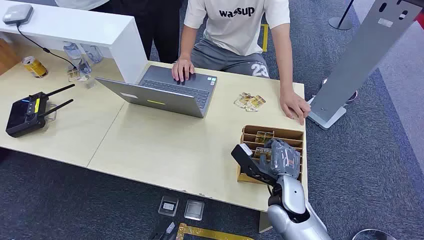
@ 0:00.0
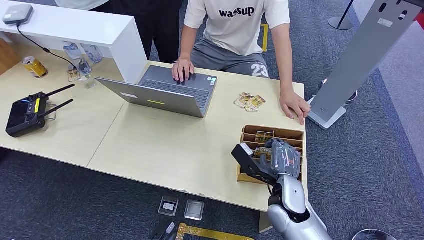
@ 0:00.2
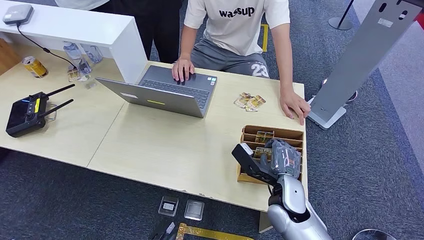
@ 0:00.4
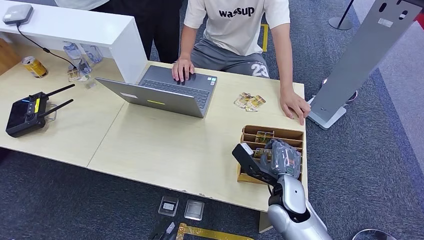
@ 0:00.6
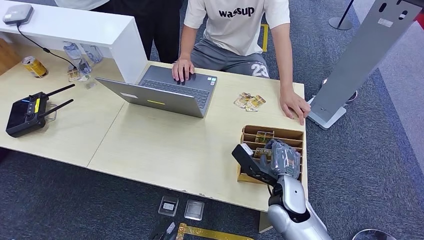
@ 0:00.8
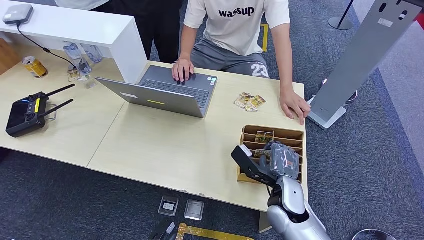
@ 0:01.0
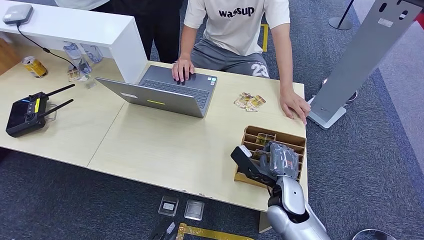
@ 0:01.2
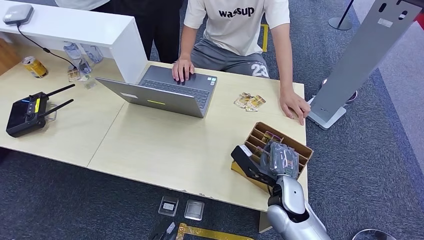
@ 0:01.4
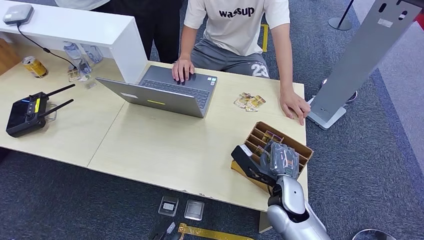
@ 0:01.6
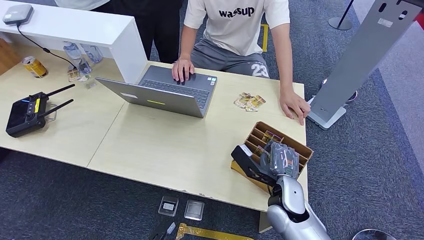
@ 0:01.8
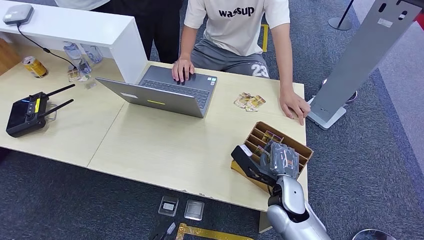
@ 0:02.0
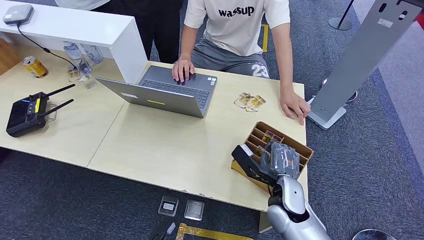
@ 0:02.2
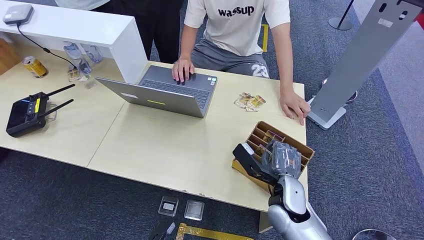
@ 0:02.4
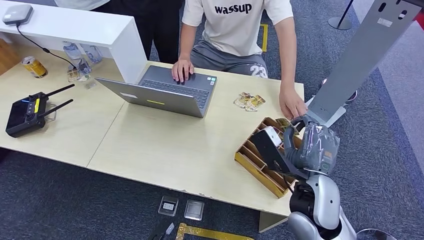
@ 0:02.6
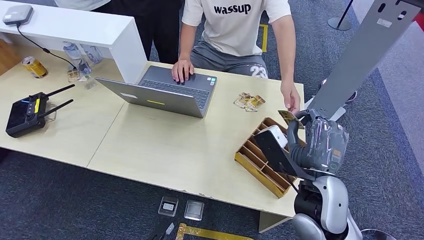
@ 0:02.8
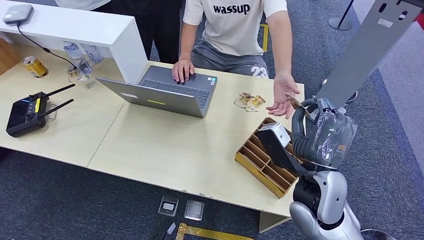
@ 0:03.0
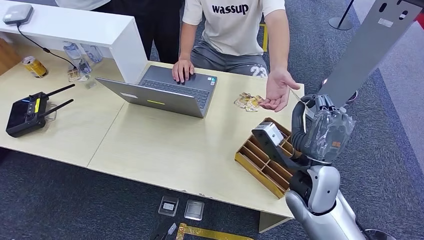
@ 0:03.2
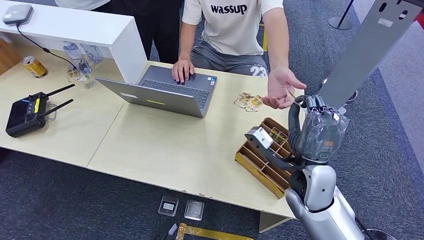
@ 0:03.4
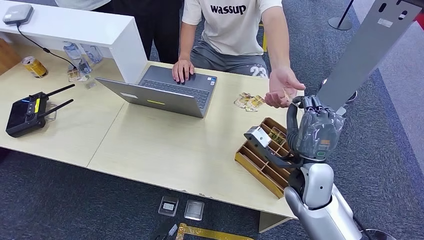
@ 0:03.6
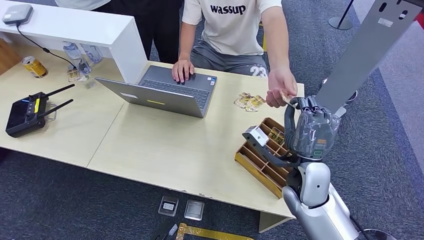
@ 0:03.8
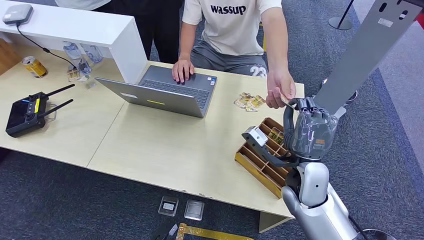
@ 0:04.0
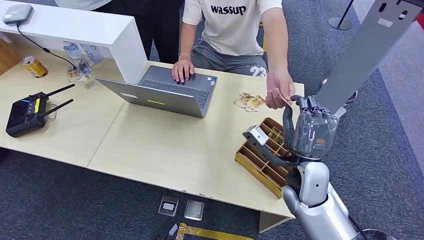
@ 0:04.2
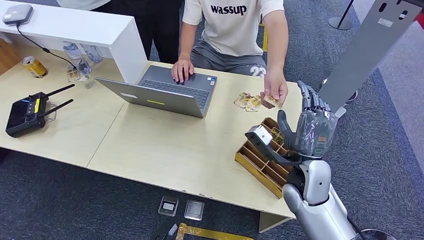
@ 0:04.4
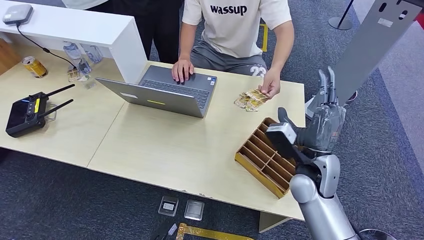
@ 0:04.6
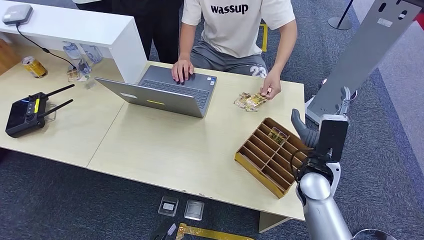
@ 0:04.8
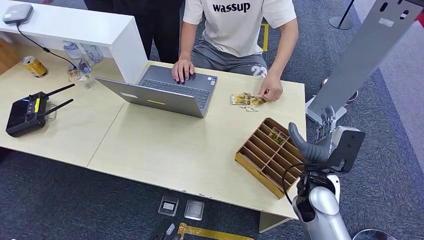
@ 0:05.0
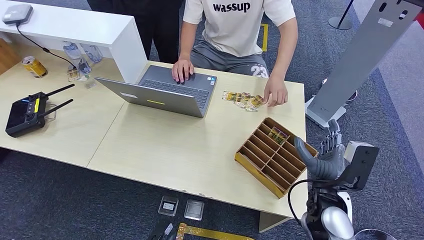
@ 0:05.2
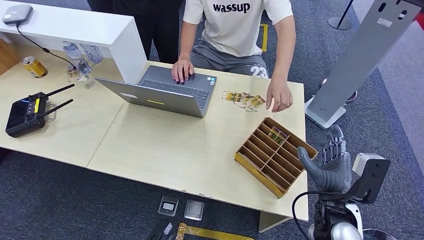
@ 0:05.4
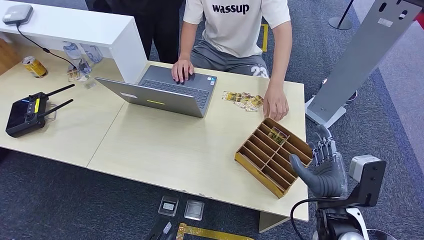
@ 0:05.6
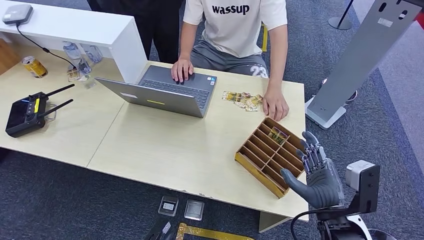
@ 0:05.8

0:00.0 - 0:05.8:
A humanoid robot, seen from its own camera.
Step, 0:00.0 - 0:02.8: Pick up the room card from the card holder.
Step, 0:03.4 - 0:05.8: Hand the room card to the target.
0:01.4 - 0:02.8: The right hand is displaced upward by about 10 cm.
0:02.8 - 0:04.4: The right hand moves about 5 cm.
0:04.4 - 0:05.8: The right hand goes about 15 cm backward and to the right.
